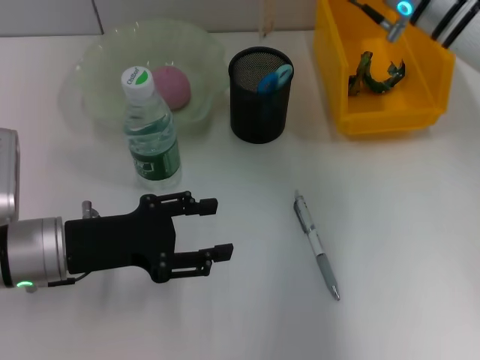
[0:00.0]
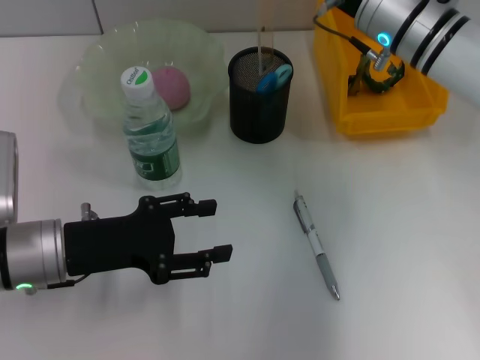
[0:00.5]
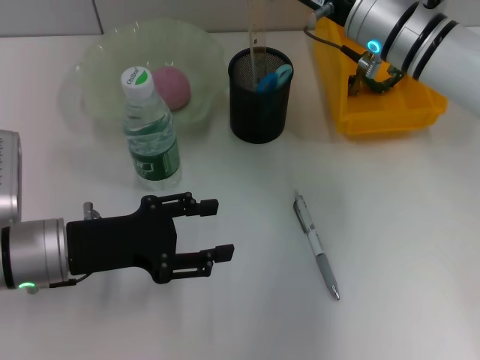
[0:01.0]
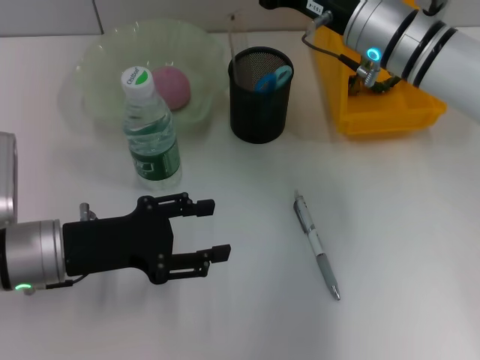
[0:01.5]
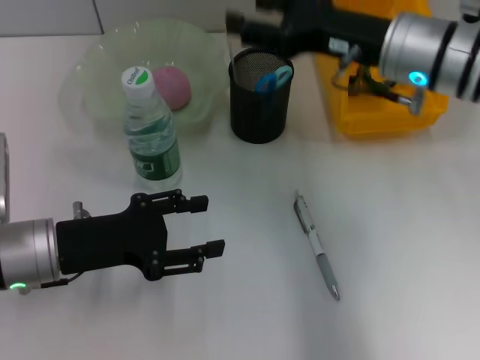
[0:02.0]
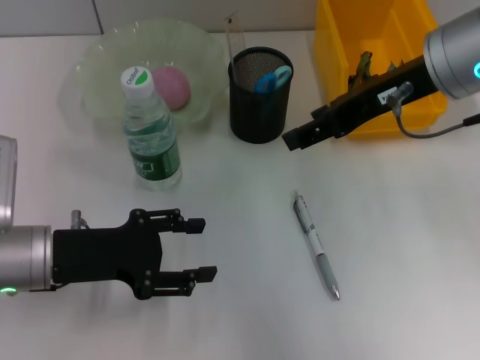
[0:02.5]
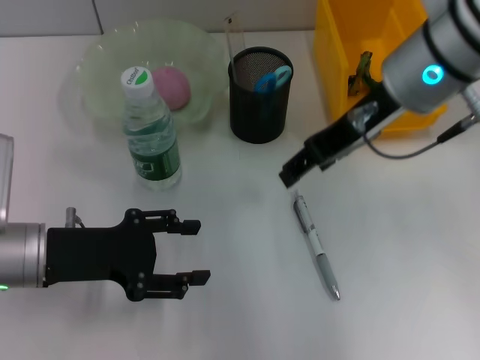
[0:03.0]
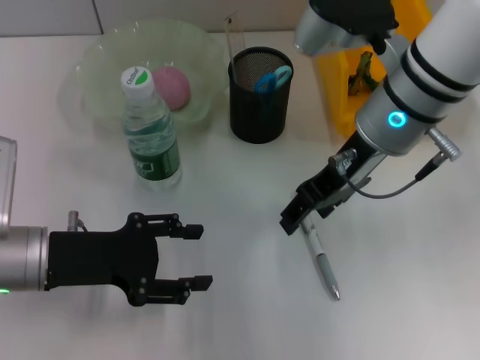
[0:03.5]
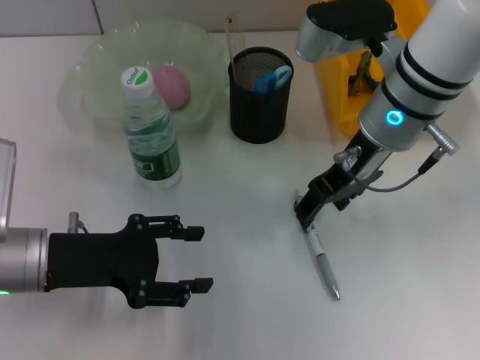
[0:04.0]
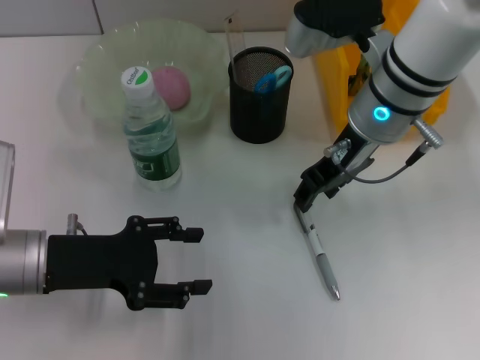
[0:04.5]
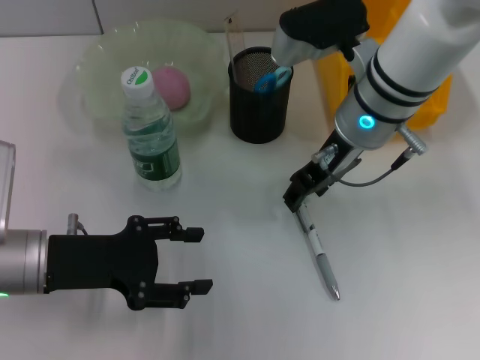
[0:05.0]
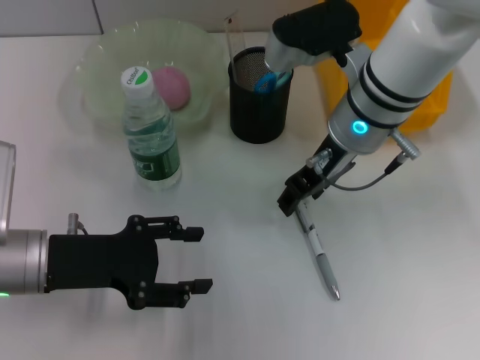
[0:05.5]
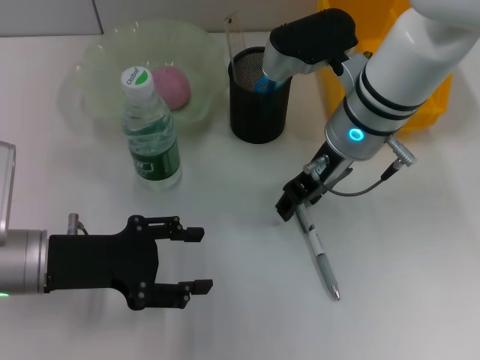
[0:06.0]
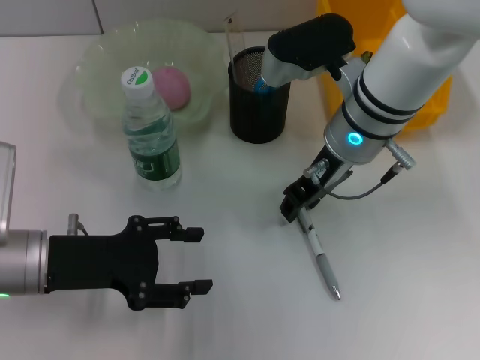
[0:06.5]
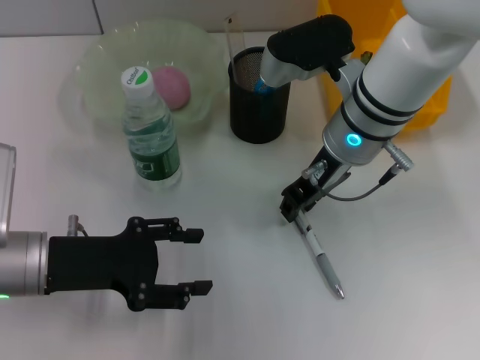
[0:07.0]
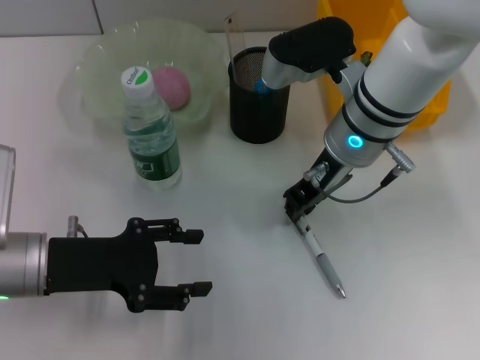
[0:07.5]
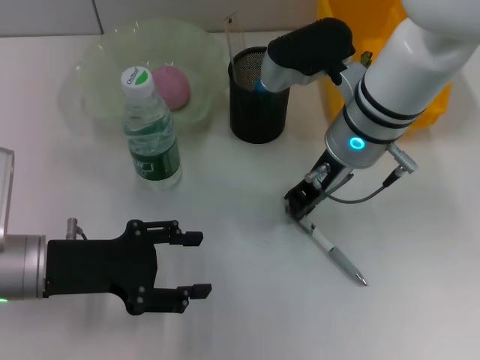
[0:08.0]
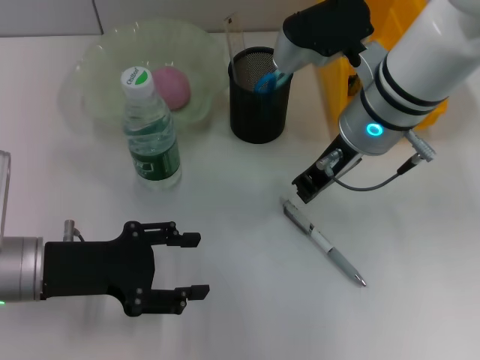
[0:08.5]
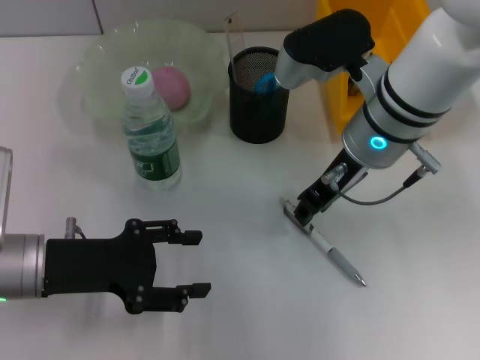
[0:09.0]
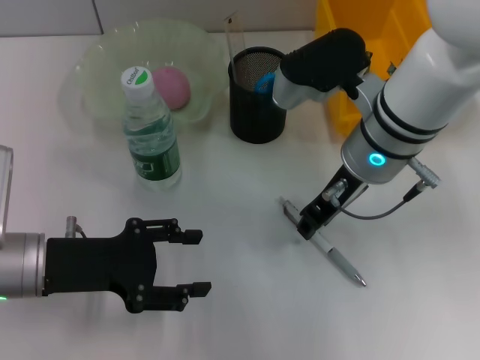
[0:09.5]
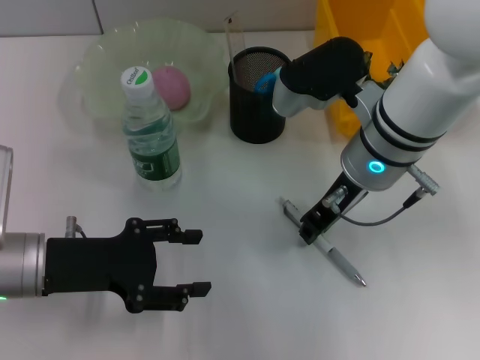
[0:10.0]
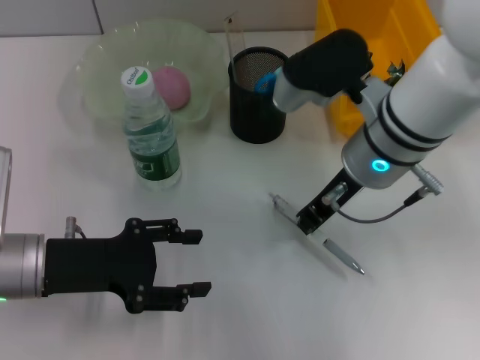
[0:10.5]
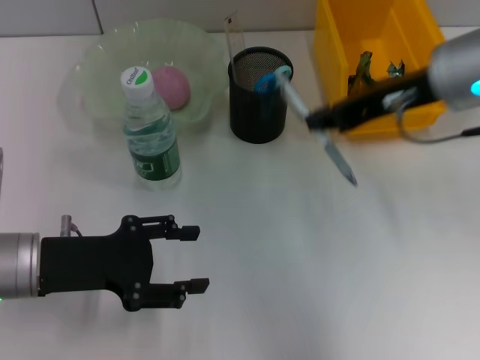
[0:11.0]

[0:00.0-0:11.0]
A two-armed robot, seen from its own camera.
Step, 0:01.5 to 0:10.0: Grab the gray spring-action pen with the right hand.
0:00.0 to 0:02.0: The right gripper shifts some 5 cm backward.
0:03.5 to 0:05.5: The grippers stay close to where they were, moving slightly.
0:05.5 to 0:07.5: The right gripper closes up.
0:07.5 to 0:09.0: The grippers make only small movements.
0:09.0 to 0:11.0: The right gripper heads to the right and upward, covering approximately 10 cm.

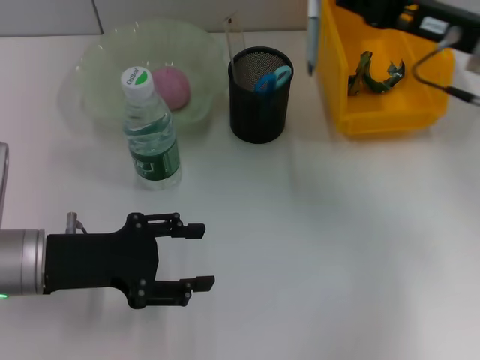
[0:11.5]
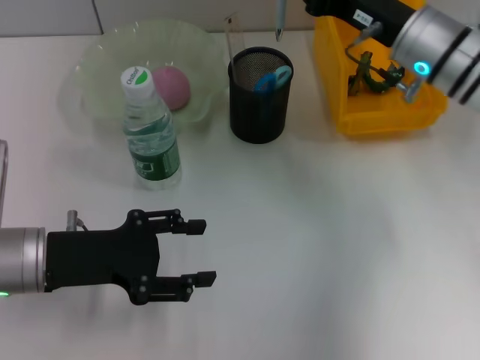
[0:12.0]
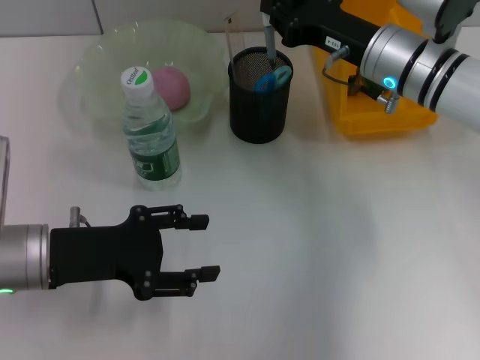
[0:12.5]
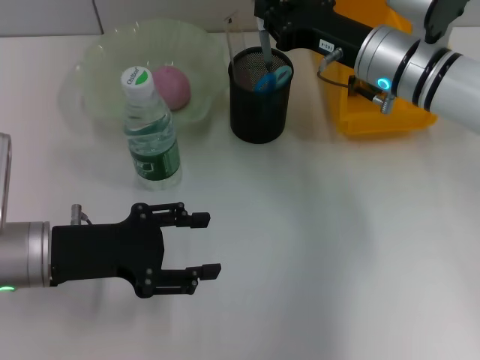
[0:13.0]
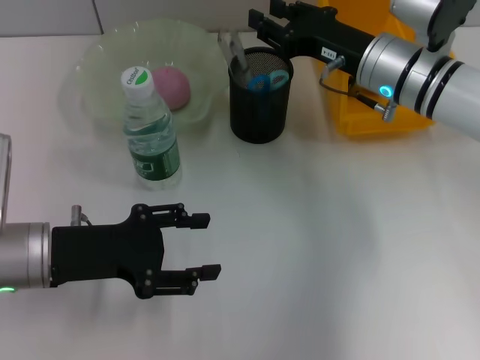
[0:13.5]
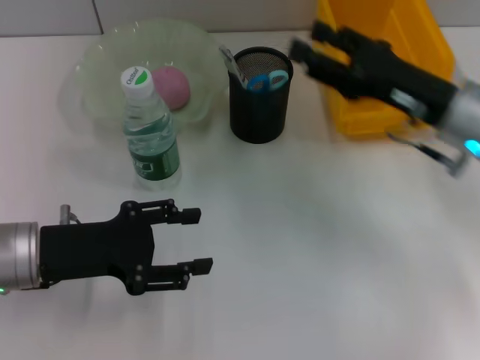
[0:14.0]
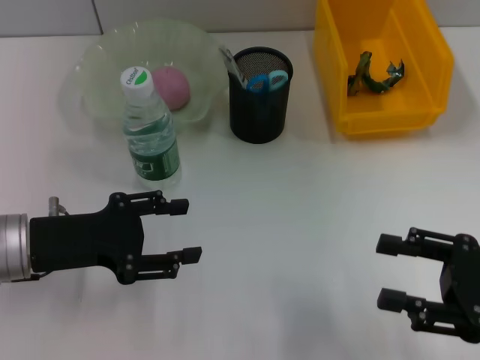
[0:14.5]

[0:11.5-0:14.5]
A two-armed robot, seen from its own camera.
Step, 0:11.5 to 0:13.5: Place the gray spring-action pen into the pen holder with the right hand.
0:11.5 to 0:13.0: The right gripper heads to the left and downward, covering approximately 10 cm.
0:13.0 to 0:14.5: The right gripper travels backward and to the right by some 25 cm, and opens up.
